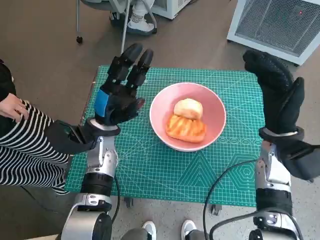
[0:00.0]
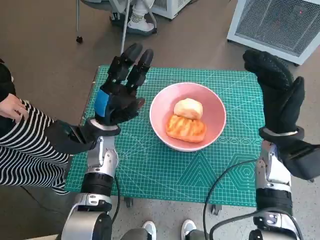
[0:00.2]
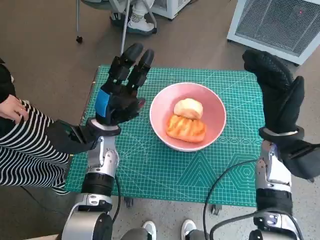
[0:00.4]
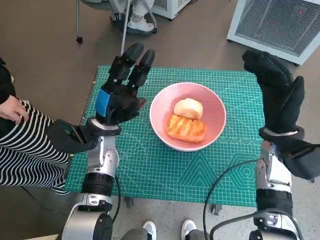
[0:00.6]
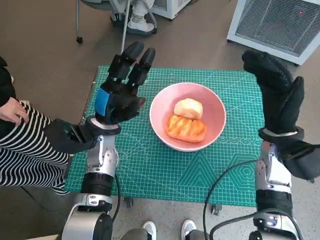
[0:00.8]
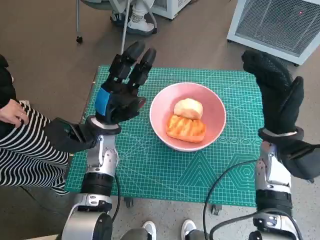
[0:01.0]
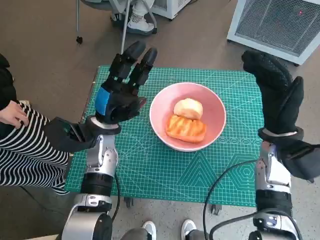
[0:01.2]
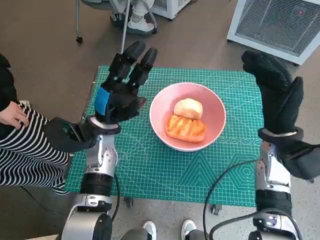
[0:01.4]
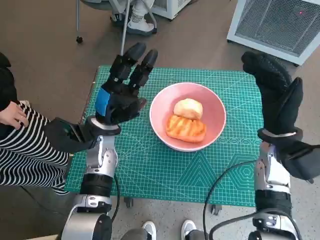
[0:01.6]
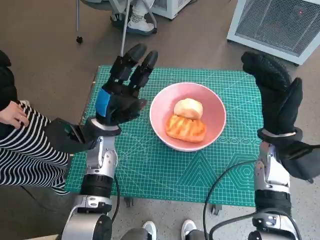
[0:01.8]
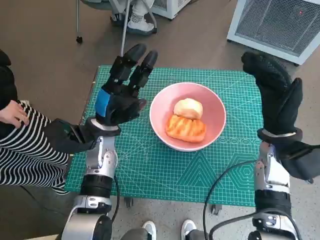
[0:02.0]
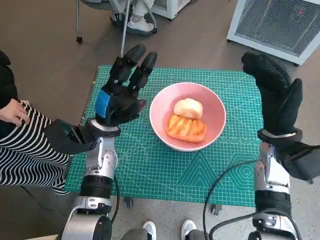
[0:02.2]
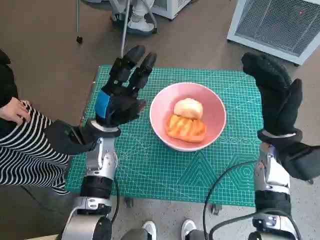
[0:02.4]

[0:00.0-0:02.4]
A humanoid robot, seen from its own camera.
Task of the whole recording: Push the bowl into the center of the table and put the bread into the bowl.
0:00.0 to 0:02.4: The two hands keep their place.
